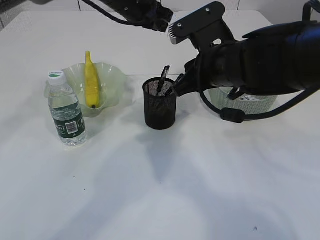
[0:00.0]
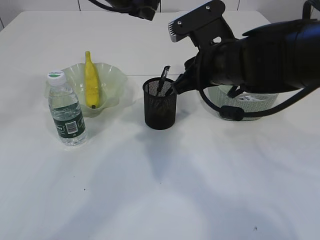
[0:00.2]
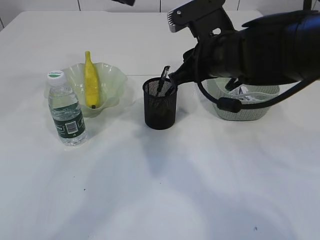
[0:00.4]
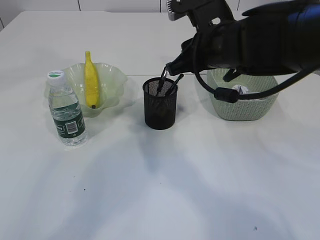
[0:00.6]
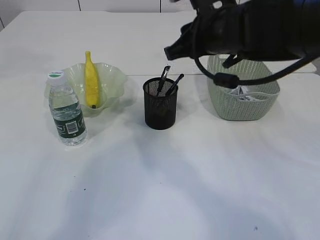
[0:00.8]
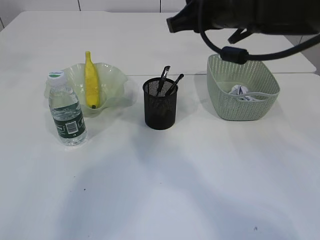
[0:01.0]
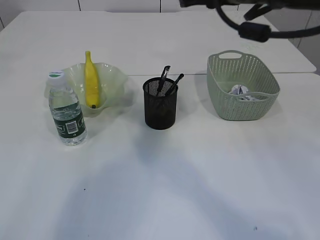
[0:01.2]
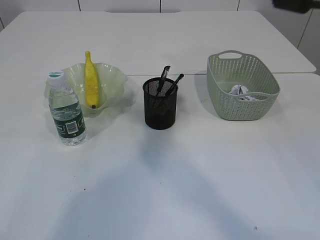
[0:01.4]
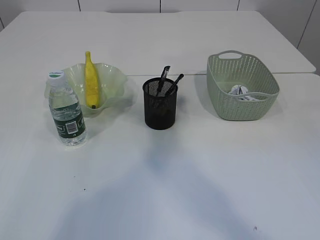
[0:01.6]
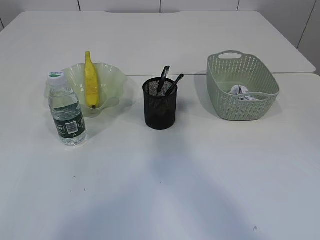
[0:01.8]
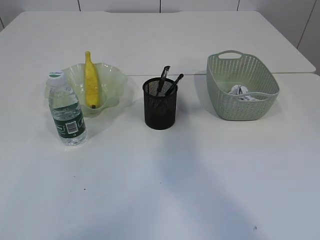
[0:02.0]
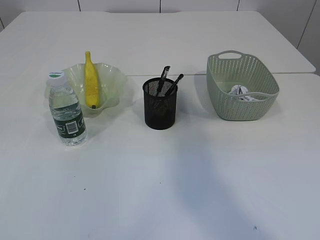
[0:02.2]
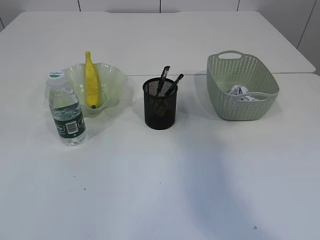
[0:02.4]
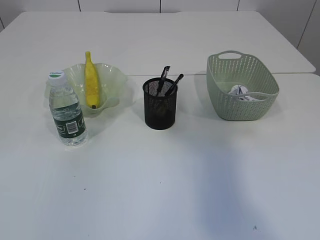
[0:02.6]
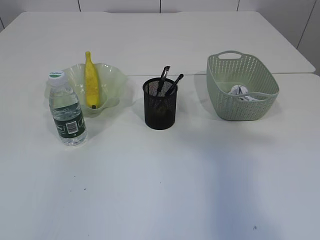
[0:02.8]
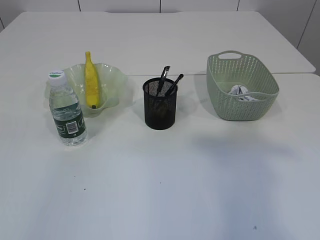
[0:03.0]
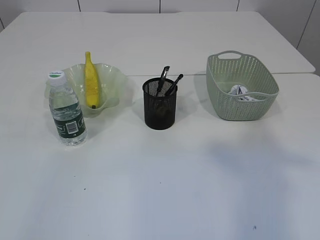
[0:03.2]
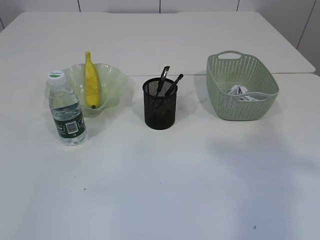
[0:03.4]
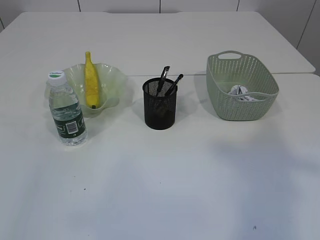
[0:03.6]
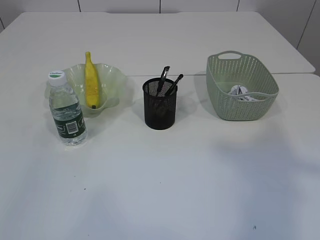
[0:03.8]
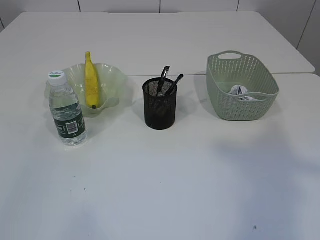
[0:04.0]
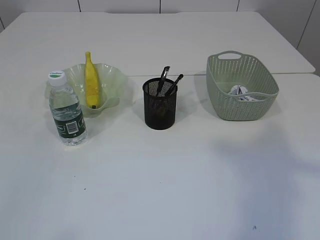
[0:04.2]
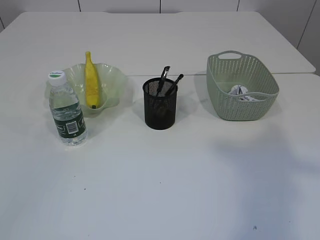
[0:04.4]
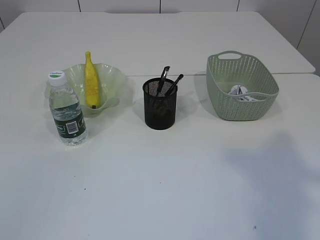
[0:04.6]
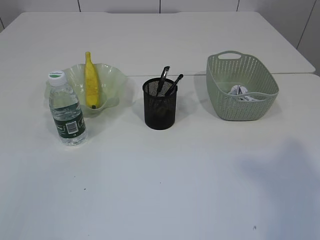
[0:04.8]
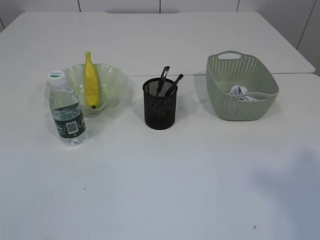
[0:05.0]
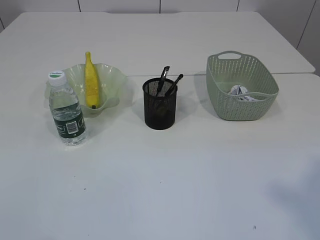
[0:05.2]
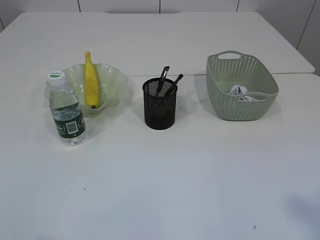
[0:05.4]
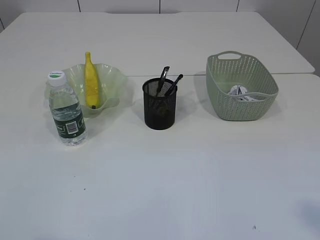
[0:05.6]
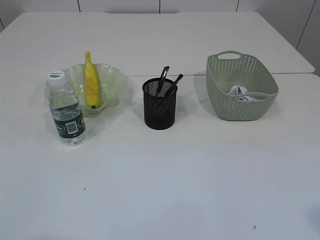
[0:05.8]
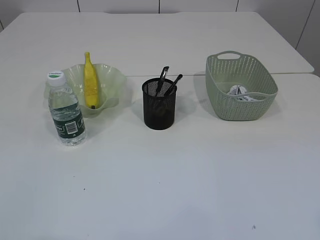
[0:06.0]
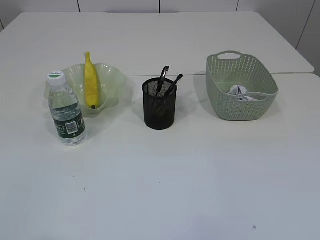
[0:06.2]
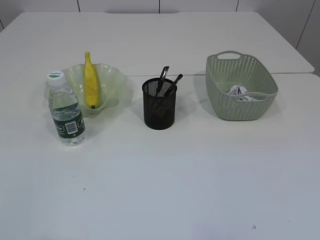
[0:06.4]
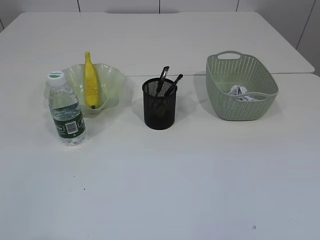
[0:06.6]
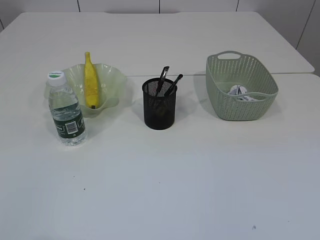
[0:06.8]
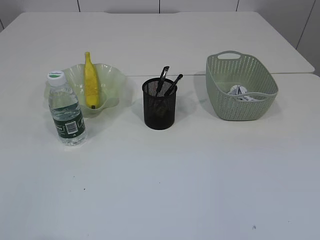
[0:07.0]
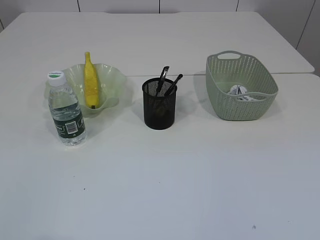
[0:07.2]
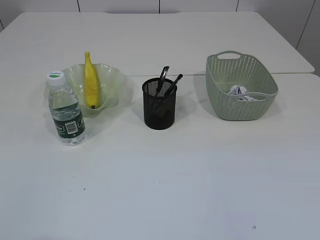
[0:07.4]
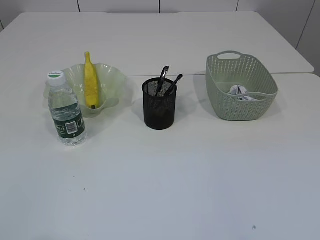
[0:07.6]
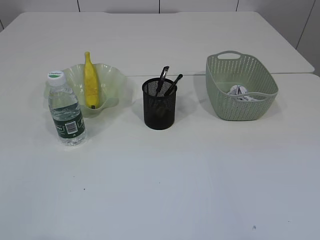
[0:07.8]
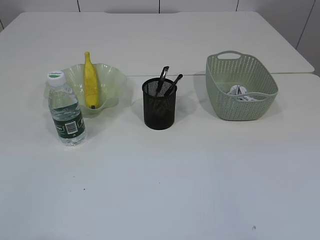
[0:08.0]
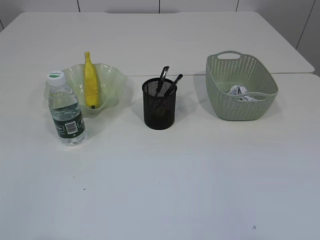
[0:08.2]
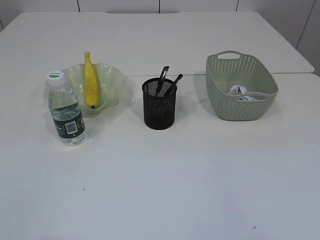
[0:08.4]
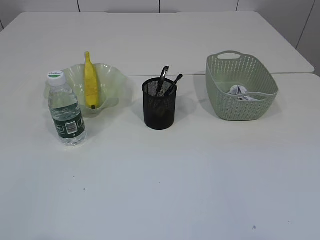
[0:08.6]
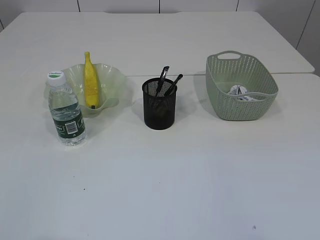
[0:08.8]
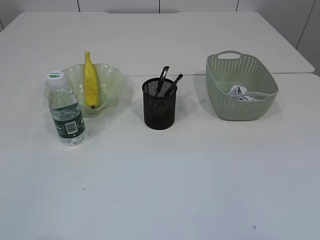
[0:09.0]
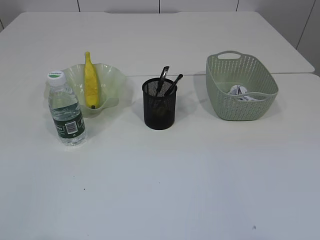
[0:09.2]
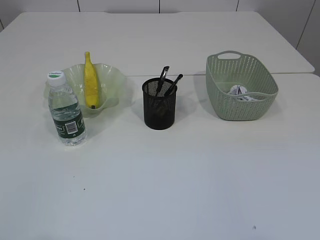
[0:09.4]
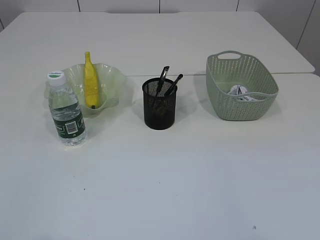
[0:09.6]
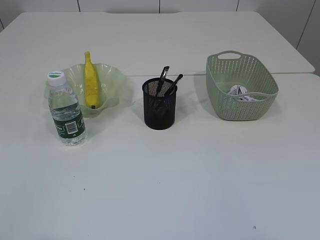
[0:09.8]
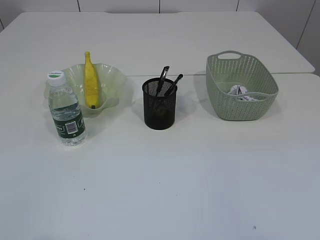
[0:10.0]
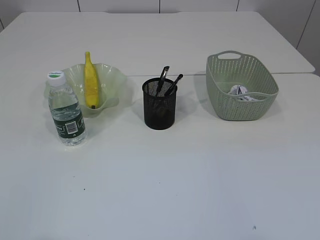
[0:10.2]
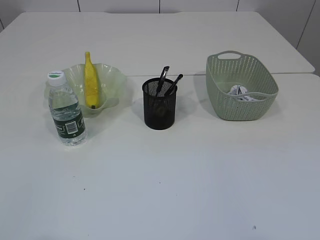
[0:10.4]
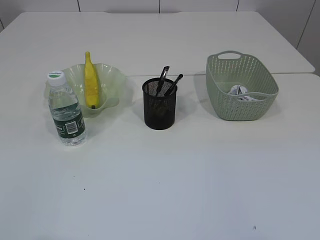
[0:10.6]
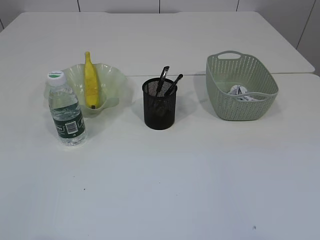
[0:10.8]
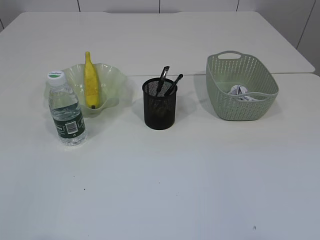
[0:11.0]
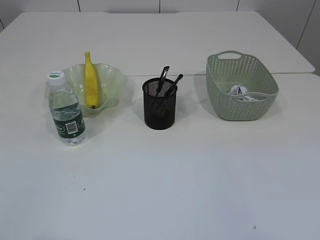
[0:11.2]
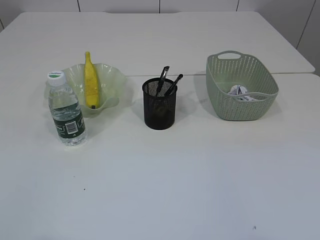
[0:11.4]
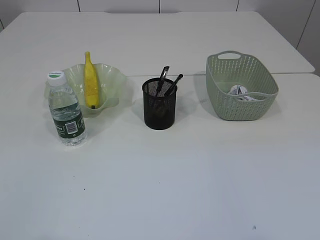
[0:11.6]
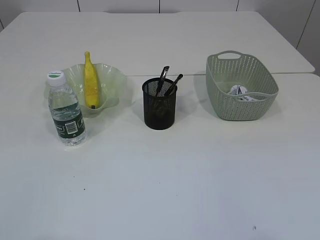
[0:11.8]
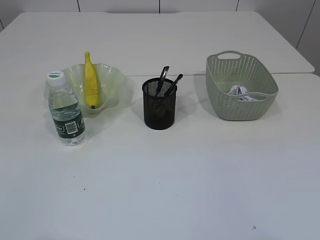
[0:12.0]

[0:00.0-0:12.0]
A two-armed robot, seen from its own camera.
0:00.0 to 0:01.6: The right gripper moves upward, approximately 20 cm. Meanwhile the left gripper shifts approximately 40 cm upward, to the left and backward.
0:01.6 to 0:03.0: The right gripper travels backward, to the right and upward by some 25 cm, while the left gripper is displaced backward by some 25 cm.
0:04.4 to 0:06.0: The right gripper goes about 15 cm downward, backward and to the right.
0:09.0 to 0:10.4: The two grippers keep their place.

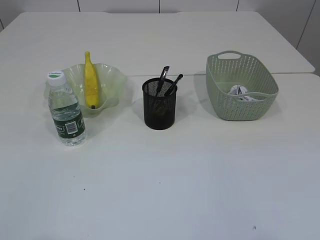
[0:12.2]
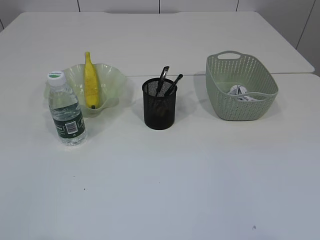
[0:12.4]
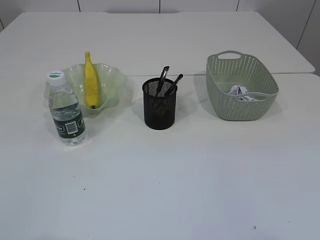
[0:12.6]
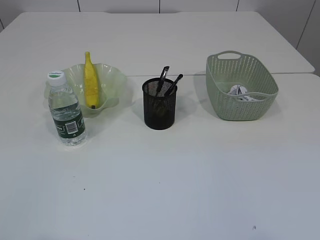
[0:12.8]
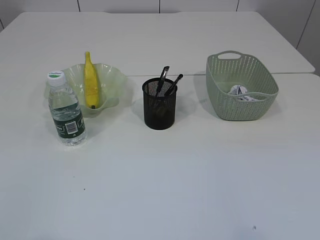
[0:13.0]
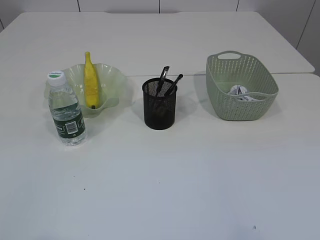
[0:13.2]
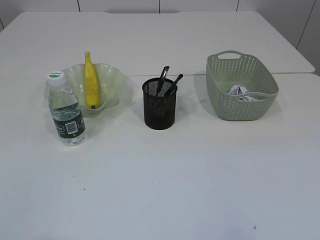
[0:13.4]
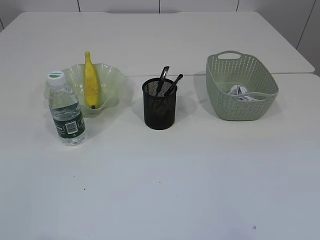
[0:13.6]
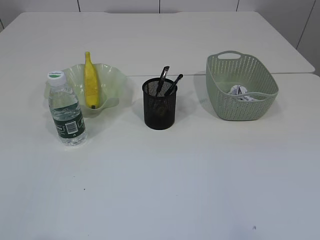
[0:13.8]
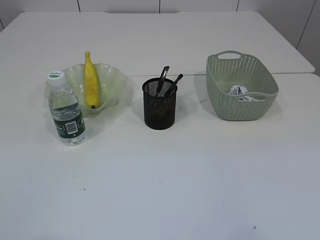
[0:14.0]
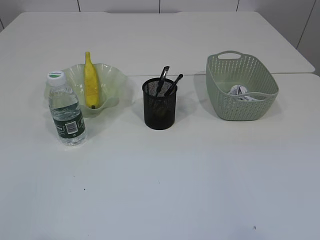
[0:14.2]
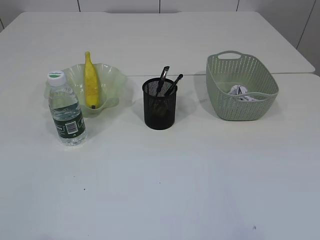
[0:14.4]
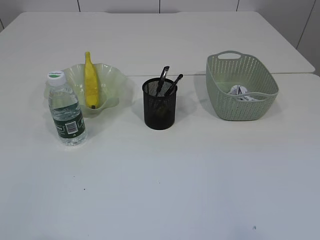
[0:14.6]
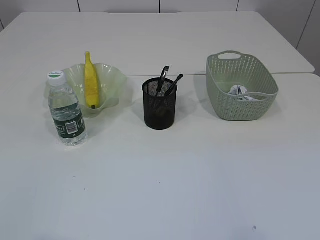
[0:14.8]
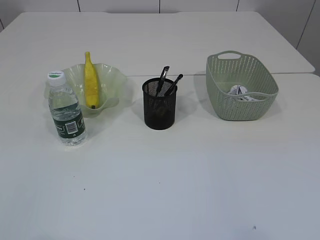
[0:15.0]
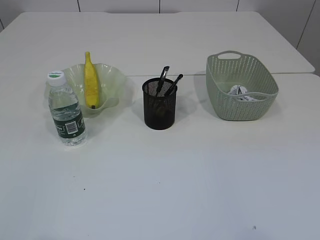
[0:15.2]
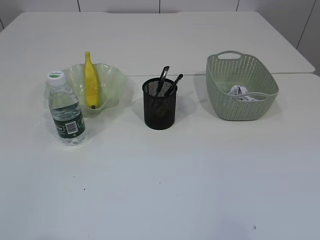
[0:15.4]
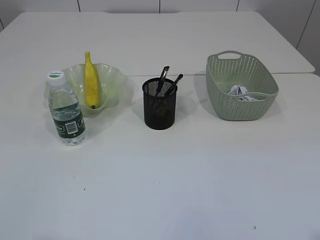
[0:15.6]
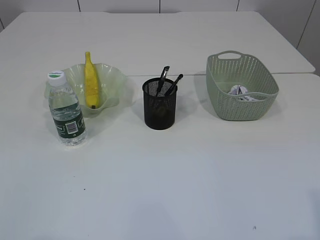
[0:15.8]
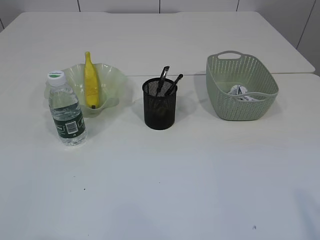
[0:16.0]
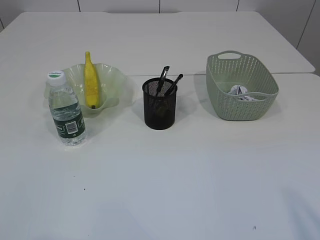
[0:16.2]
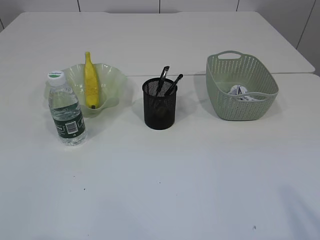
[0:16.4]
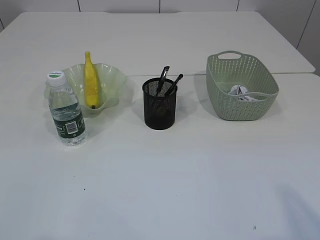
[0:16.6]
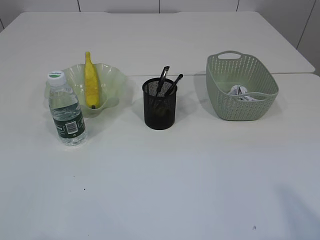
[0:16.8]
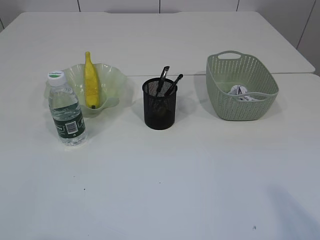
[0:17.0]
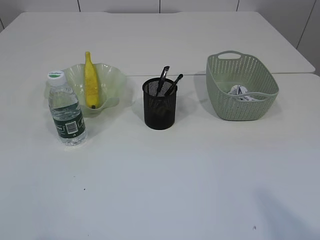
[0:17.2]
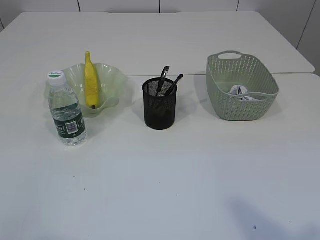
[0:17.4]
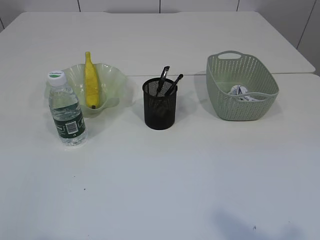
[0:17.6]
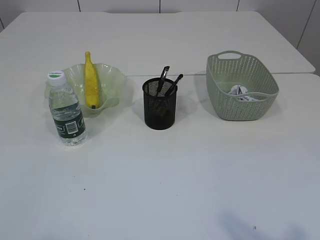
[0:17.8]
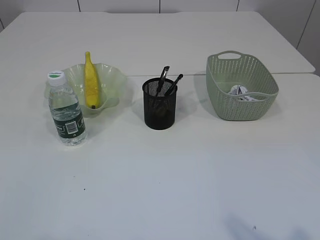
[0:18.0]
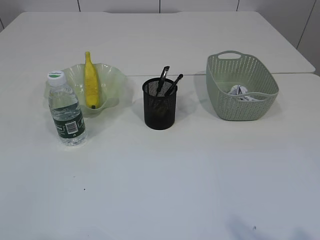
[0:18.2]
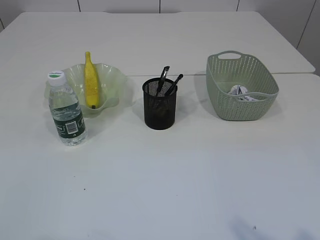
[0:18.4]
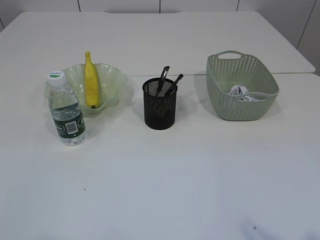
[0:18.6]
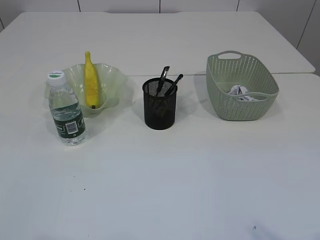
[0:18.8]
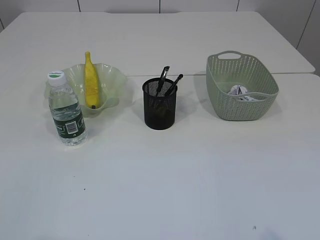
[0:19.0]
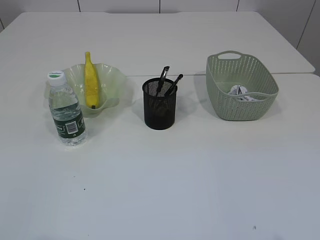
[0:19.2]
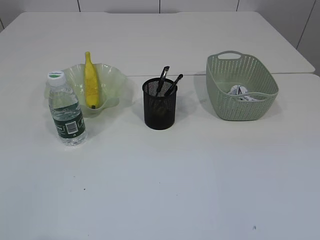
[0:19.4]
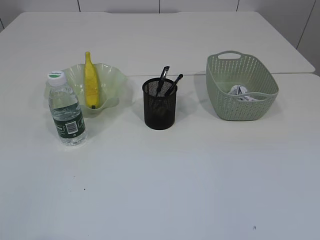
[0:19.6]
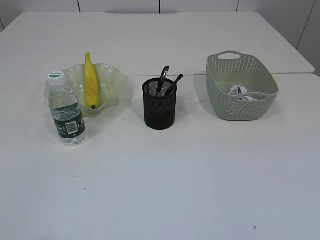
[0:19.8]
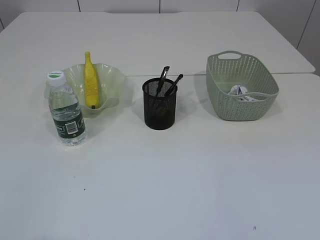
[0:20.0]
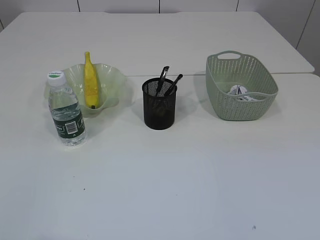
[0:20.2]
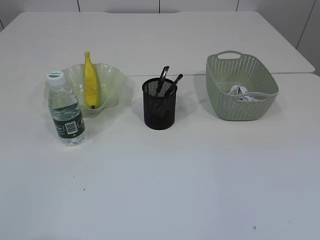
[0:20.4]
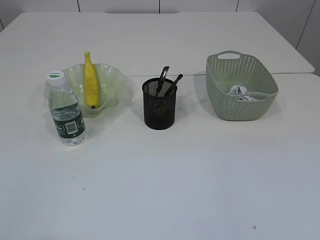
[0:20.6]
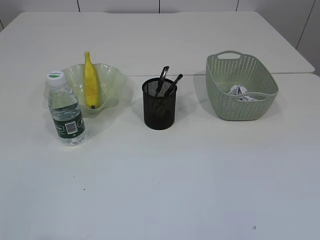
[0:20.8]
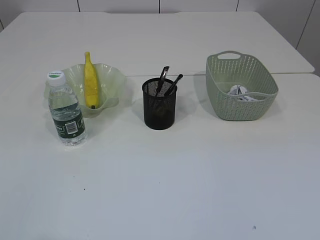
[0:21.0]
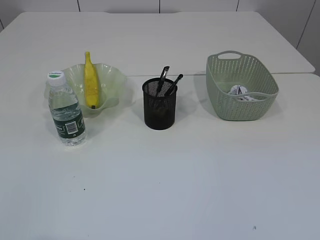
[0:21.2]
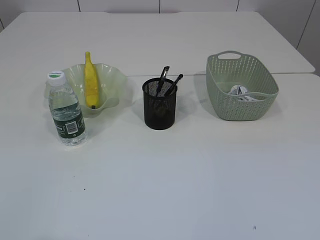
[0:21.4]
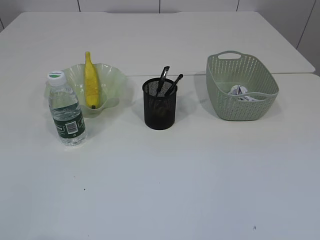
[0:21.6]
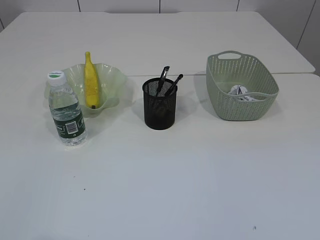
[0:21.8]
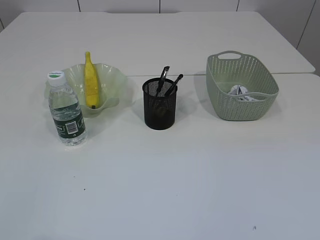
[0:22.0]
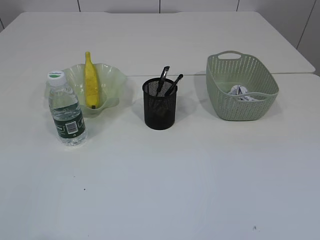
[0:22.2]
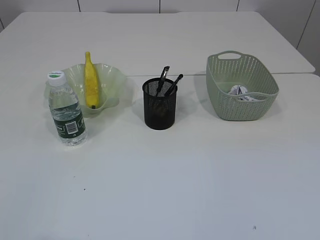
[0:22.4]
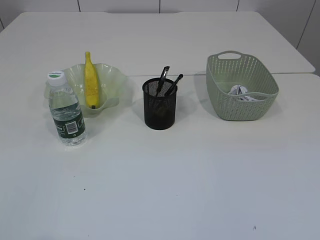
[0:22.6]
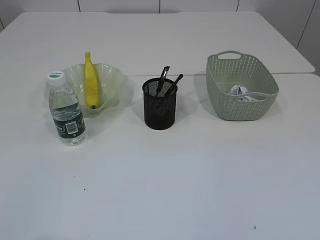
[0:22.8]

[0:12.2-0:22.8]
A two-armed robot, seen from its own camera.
0:21.2 to 0:22.8: The two grippers keep their place.
